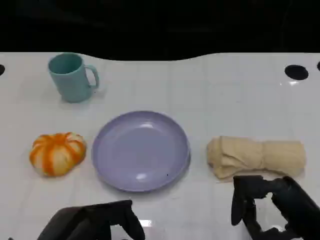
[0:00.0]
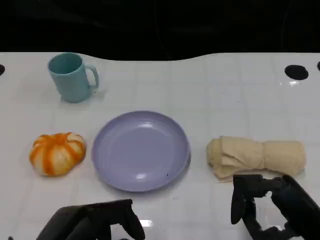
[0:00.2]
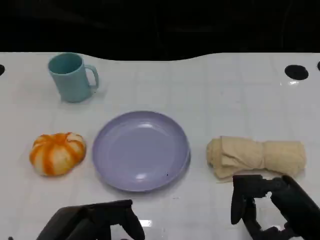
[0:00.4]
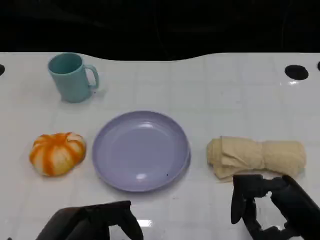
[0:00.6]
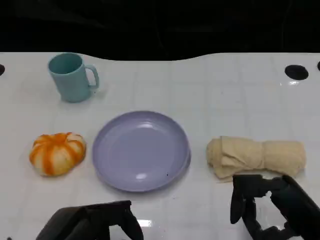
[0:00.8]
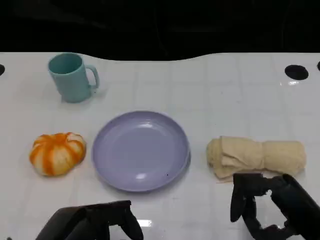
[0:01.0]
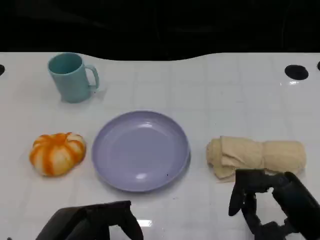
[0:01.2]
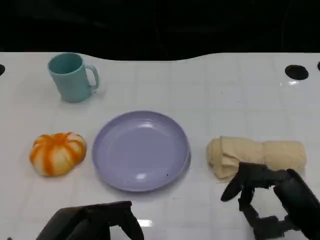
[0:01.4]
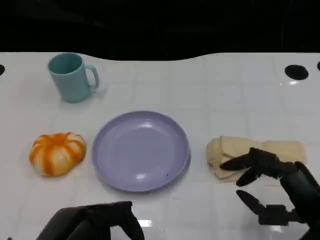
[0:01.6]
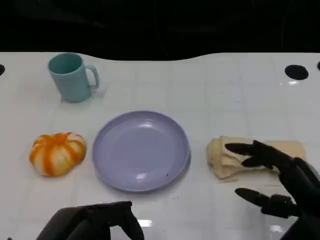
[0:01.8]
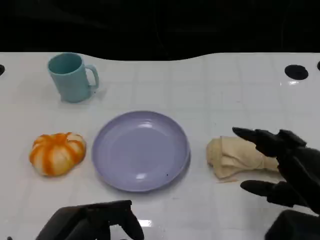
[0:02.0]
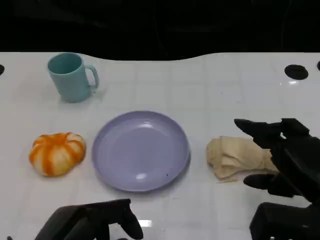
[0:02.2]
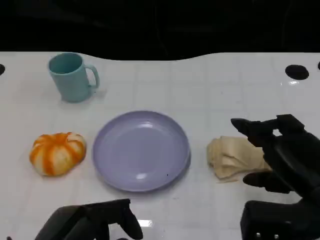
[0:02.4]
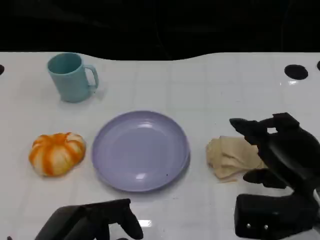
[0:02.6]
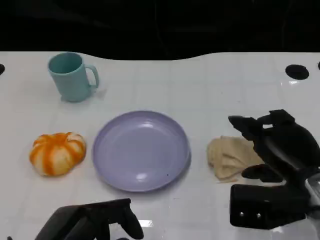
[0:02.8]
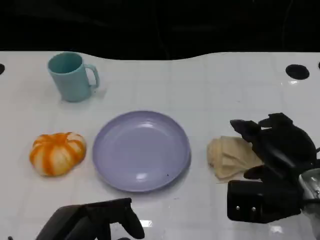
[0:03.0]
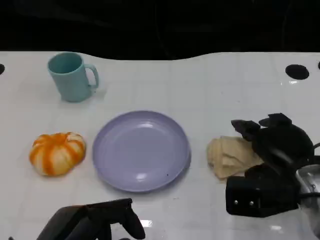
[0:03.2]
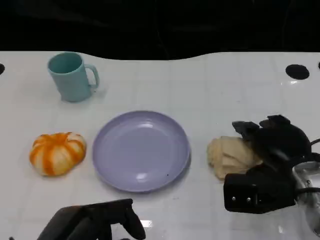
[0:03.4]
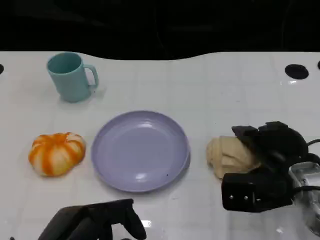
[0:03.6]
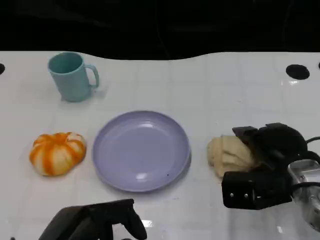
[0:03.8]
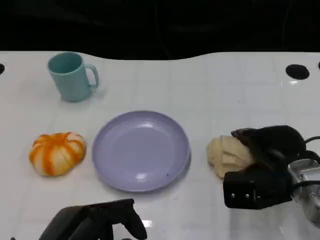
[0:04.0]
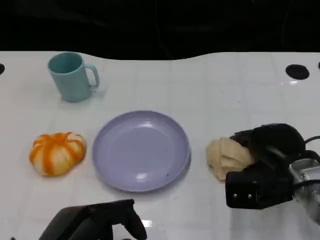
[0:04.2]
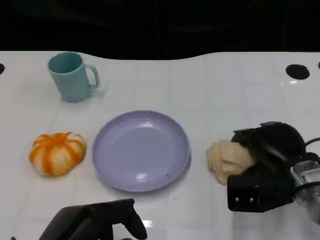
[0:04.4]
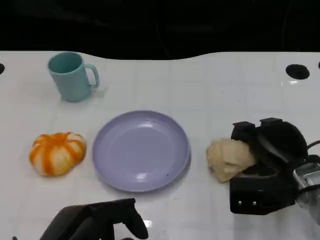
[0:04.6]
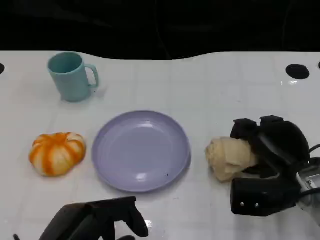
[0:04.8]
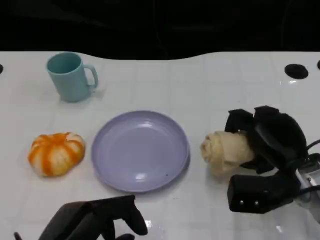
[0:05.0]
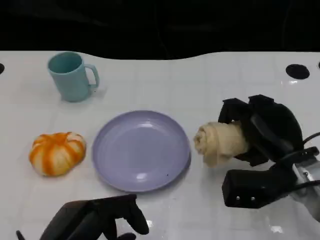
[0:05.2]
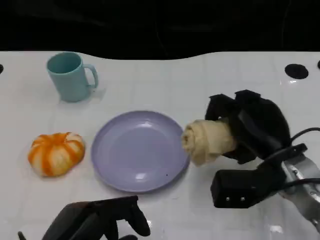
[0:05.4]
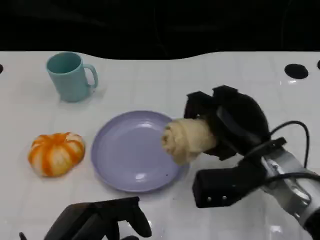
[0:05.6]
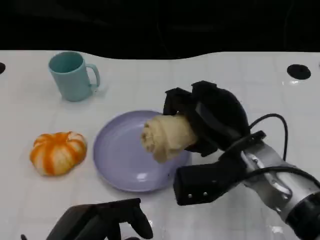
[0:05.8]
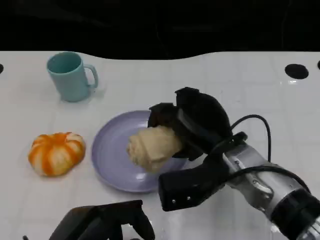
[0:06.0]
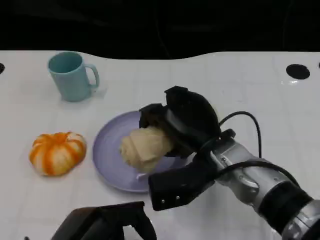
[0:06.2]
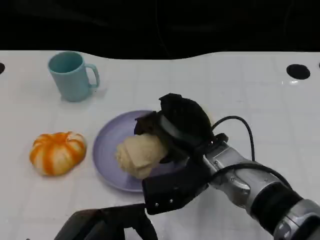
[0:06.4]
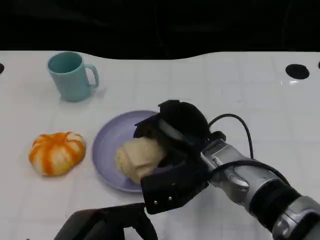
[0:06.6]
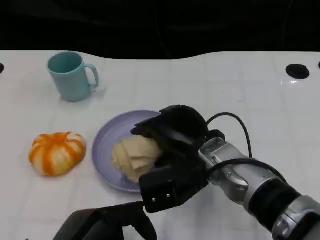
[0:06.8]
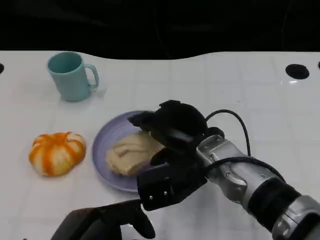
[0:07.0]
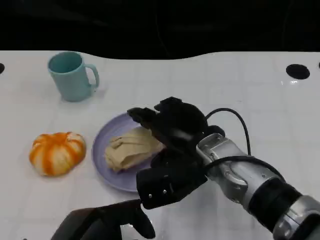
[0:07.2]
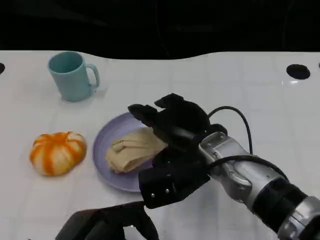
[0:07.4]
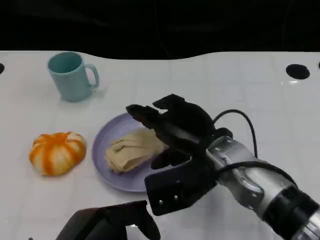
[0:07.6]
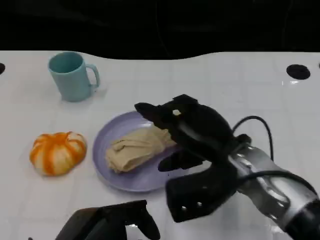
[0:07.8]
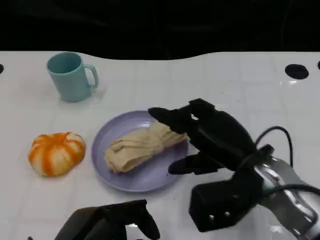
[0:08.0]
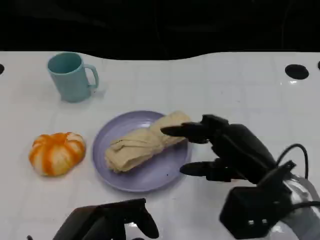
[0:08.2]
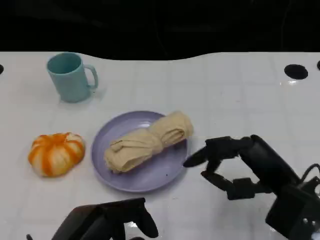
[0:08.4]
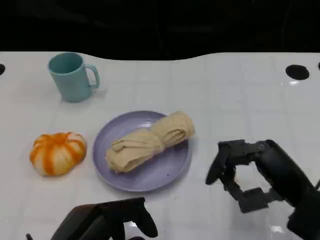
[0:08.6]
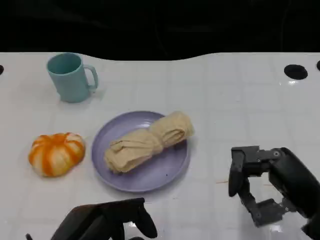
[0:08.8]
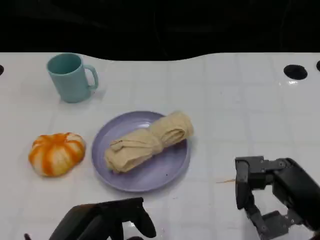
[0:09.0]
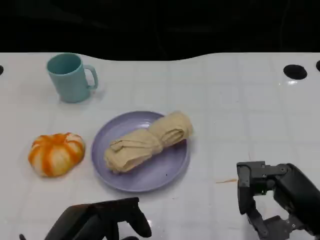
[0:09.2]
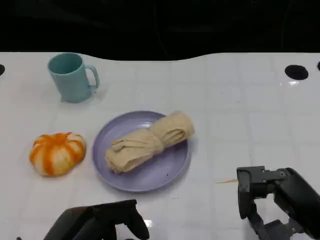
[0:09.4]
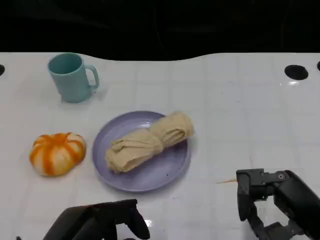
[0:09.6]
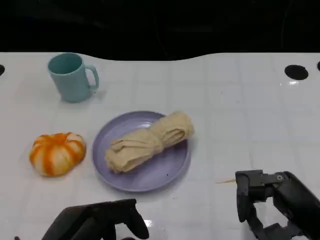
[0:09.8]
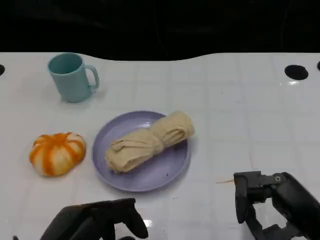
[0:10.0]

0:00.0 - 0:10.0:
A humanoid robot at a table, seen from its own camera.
Task of the whole recording: Grasp the towel on the left side of the plate with the left hand and place it into the plate.
0:00.0 - 0:01.4: The hands make only small movements.
0:01.4 - 0:02.8: The right hand travels forward by approximately 5 cm.
0:02.8 - 0:04.2: The right hand moves roughly 5 cm.
0:04.2 - 0:05.8: The right hand is displaced to the left and upward by roughly 10 cm.
0:07.2 - 0:08.6: The right hand moves to the right and backward, approximately 15 cm.
0:08.6 - 0:10.0: The hands move only a little.

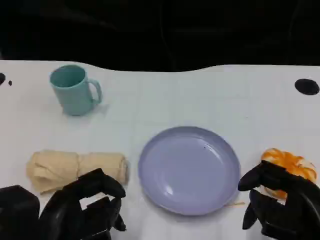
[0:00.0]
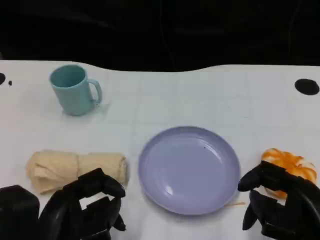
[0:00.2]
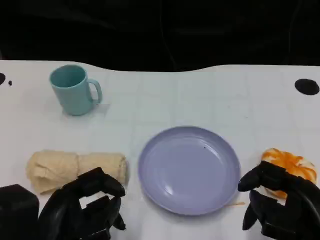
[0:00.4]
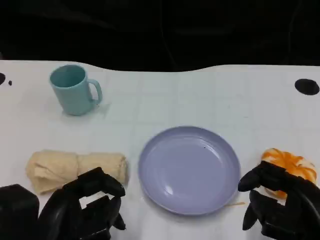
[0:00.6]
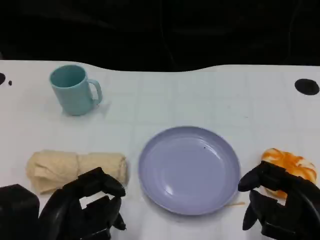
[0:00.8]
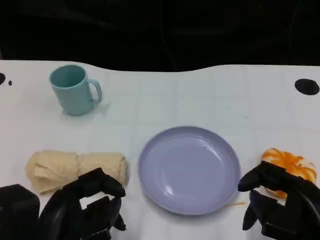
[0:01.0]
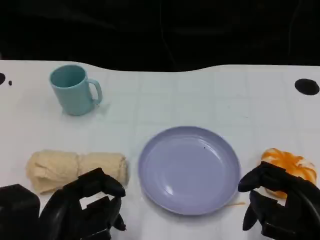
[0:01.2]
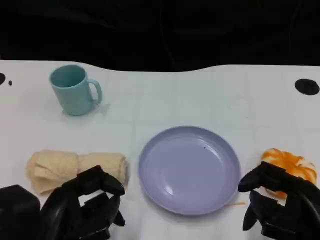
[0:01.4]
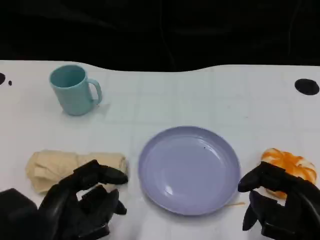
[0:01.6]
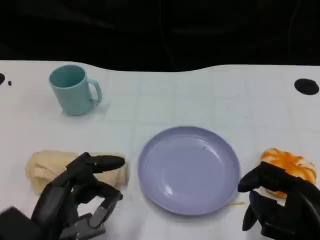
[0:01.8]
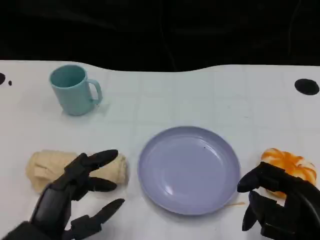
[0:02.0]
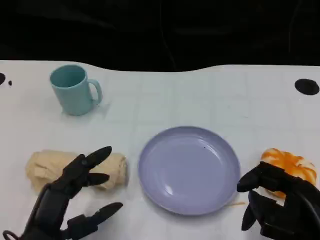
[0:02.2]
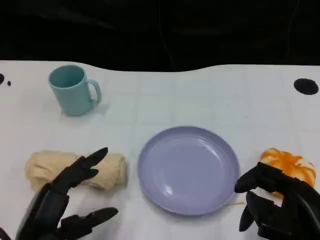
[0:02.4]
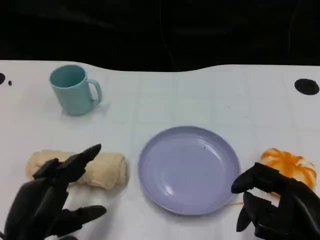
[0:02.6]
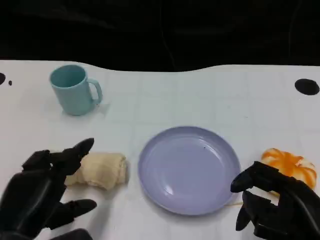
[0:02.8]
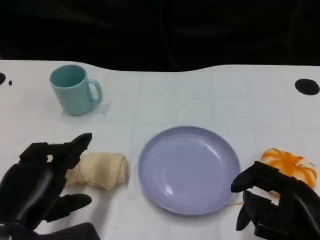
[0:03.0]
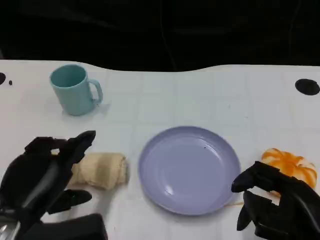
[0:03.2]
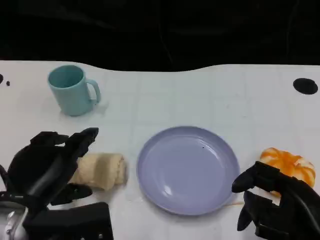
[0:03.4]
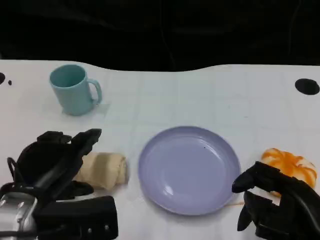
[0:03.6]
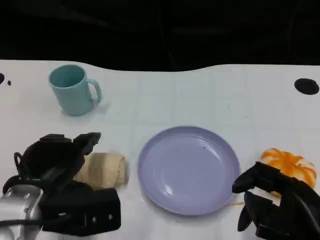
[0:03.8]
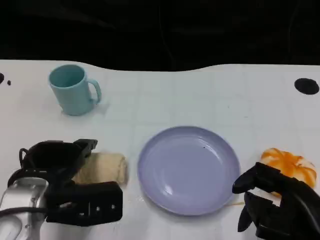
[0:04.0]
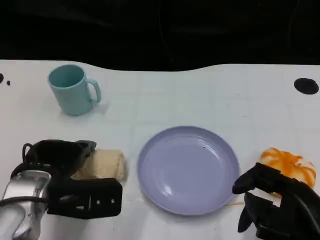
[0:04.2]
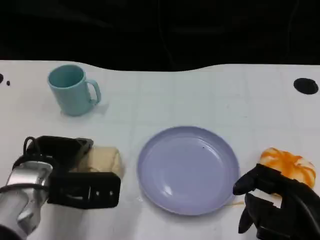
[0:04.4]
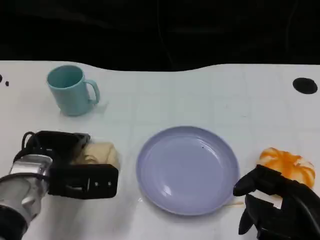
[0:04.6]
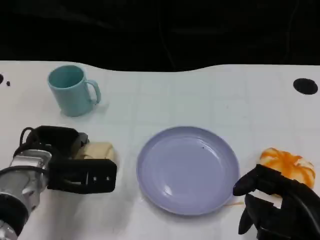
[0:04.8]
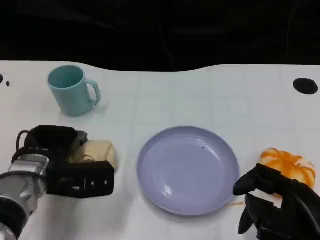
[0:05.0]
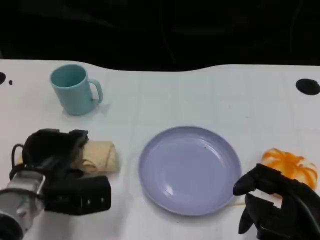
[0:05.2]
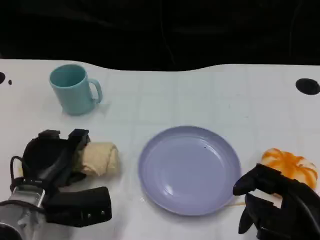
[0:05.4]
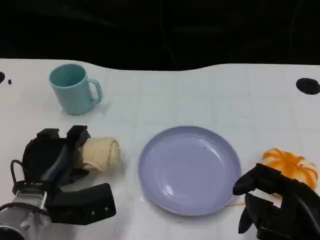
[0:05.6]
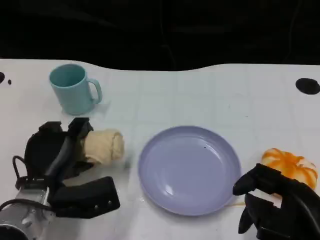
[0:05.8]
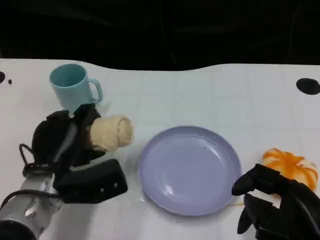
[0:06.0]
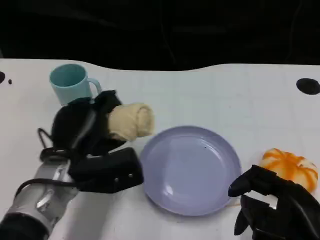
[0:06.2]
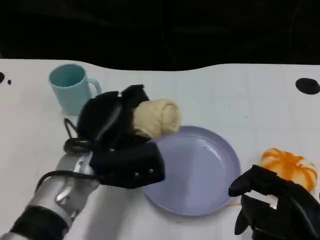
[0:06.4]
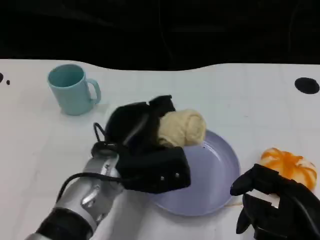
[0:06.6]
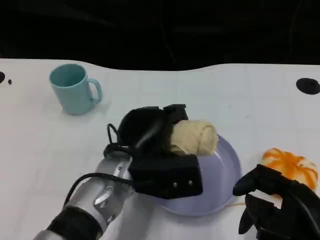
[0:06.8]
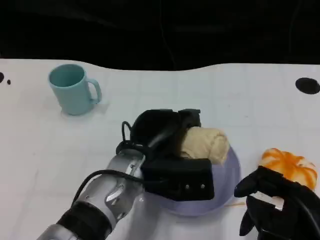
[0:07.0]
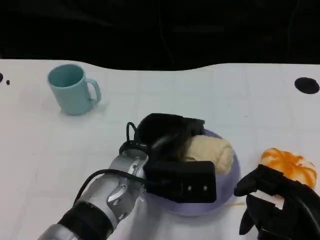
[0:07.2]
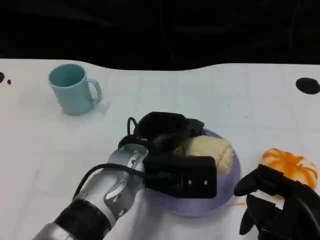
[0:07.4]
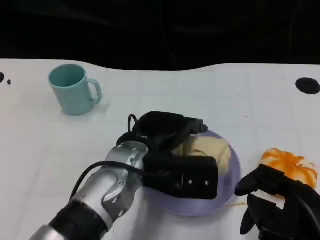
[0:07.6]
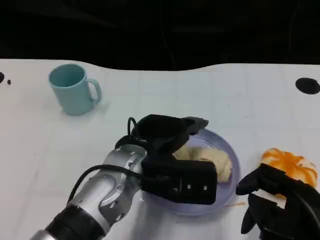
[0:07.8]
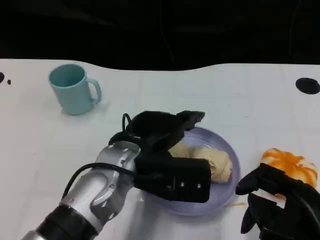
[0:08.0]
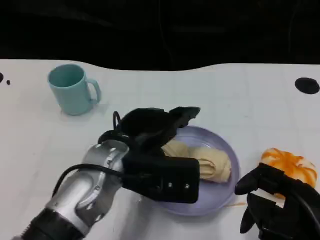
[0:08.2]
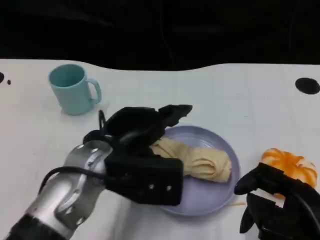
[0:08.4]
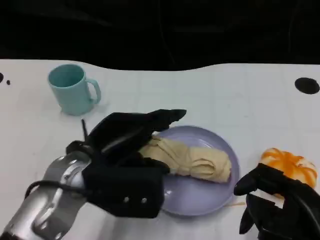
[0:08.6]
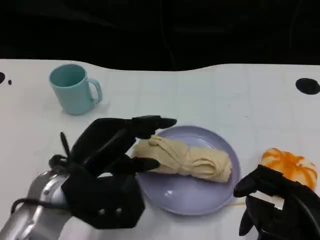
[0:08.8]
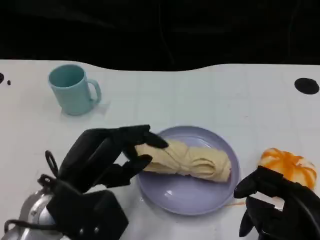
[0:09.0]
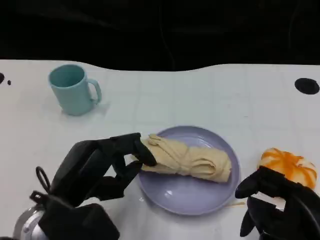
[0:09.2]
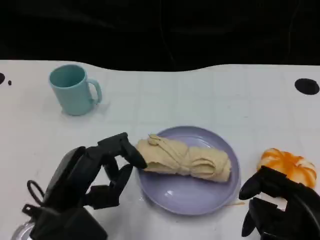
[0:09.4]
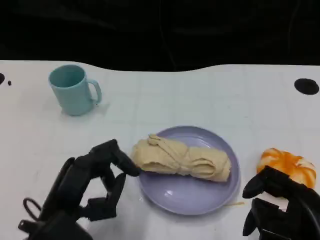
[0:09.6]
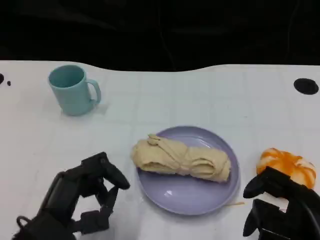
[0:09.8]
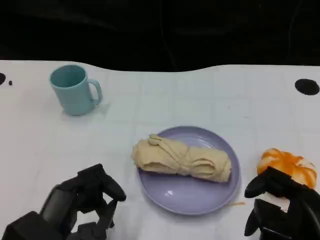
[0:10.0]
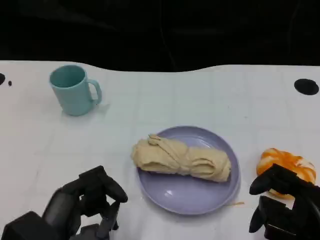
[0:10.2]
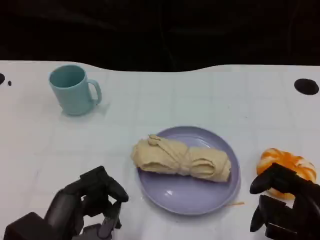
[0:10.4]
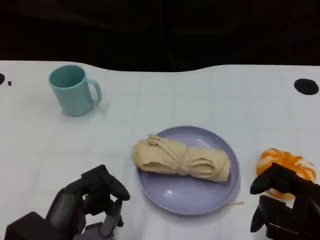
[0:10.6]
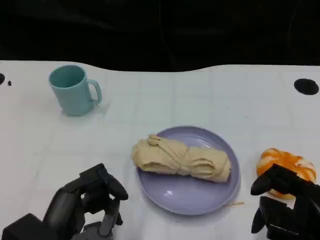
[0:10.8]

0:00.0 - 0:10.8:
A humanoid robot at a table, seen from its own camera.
Task of the whole recording: Grasp the towel on the left side of the plate with the left hand and place it into the plate.
0:00.0 - 0:01.6: The hands make only small movements.
0:03.0 - 0:04.6: The left hand is displaced forward by about 10 cm.
0:04.6 - 0:06.2: The left hand shifts some 5 cm to the right.
0:06.2 - 0:07.8: The left hand shifts roughly 10 cm to the right.
0:07.8 - 0:09.2: The left hand is displaced to the left and backward by about 15 cm.
0:09.2 - 0:10.8: The left hand shifts about 5 cm backward.
